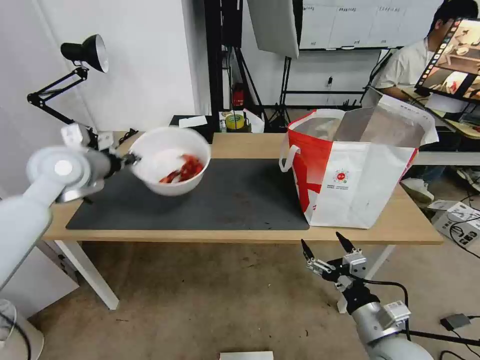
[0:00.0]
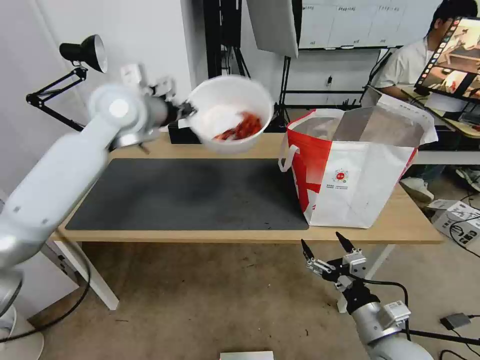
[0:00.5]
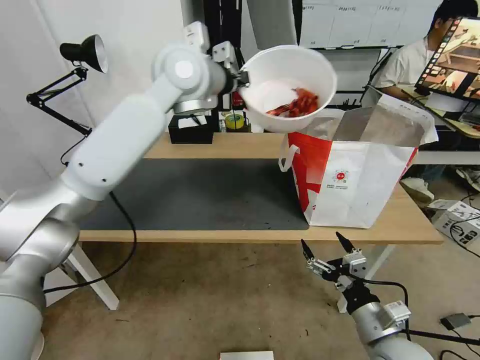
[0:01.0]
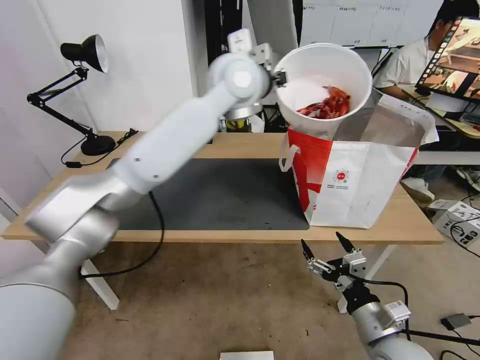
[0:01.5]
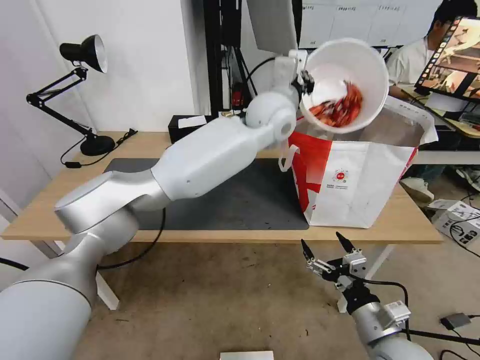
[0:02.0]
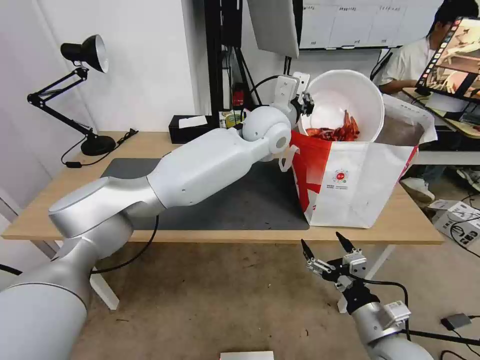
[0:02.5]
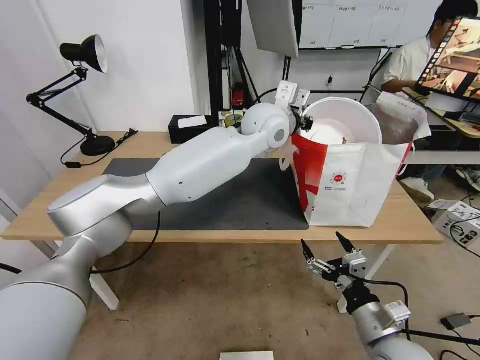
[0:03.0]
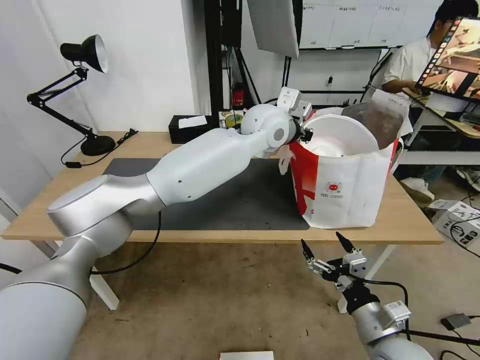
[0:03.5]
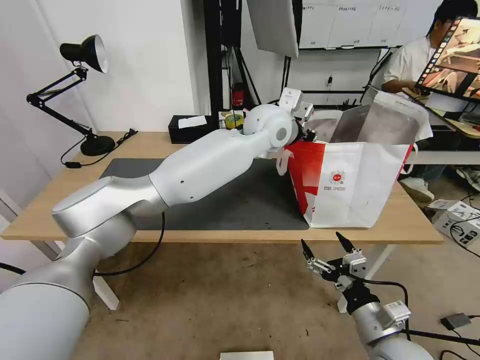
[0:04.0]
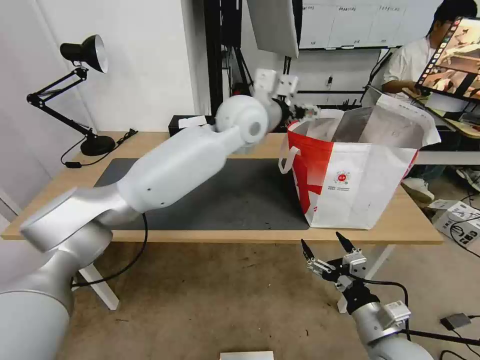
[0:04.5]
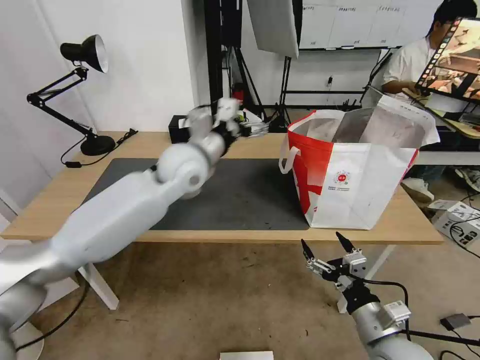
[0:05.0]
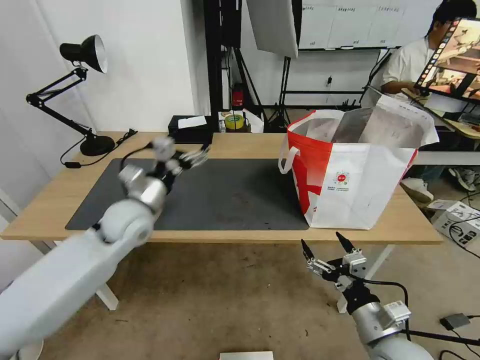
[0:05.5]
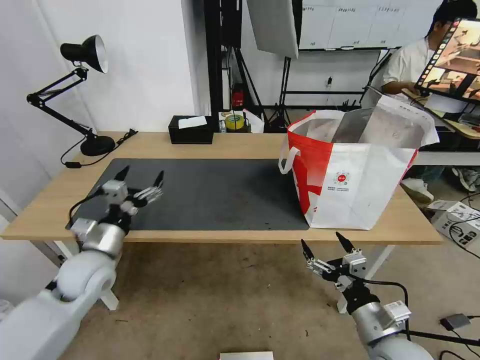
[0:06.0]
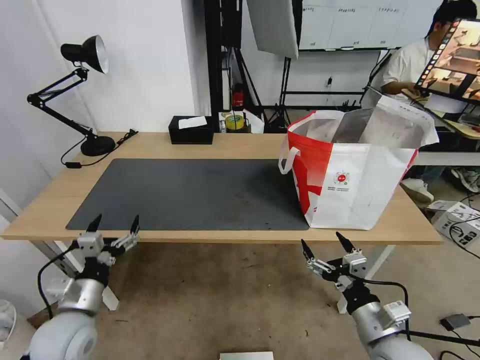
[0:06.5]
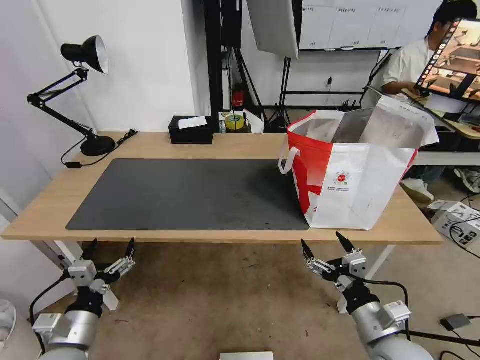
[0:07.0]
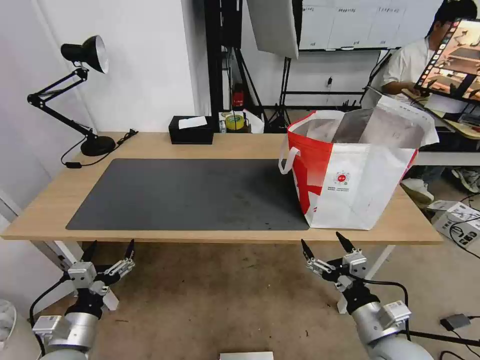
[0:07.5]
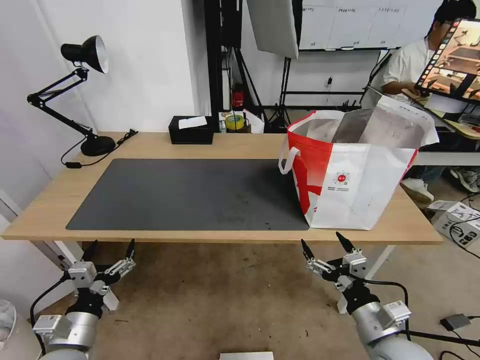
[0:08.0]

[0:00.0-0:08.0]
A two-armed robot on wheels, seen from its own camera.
Task of the whole recording: Pick up the trash from the table and place it into the takeout bag.
0:00.0 to 0:02.0: The left gripper heads to the right, covering about 40 cm.
0:02.0 to 0:04.0: The left gripper opens up.
0:04.0 to 0:06.0: The left gripper travels to the left, downward and backward by about 50 cm, and opens.
0:06.0 to 0:08.0: The left gripper goes about 20 cm backward and downward.
